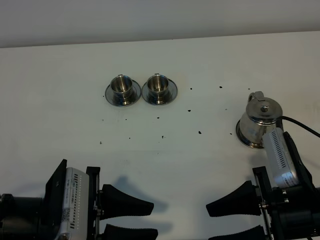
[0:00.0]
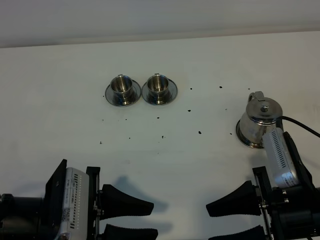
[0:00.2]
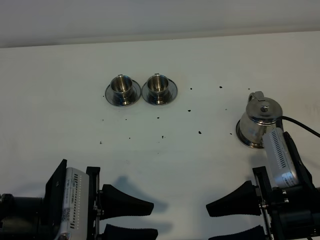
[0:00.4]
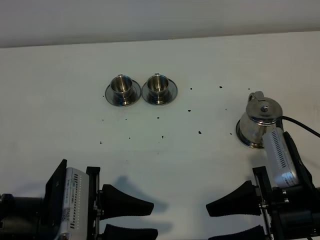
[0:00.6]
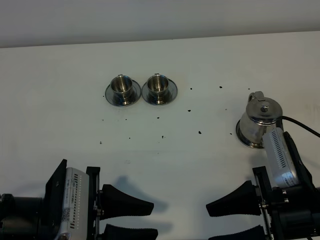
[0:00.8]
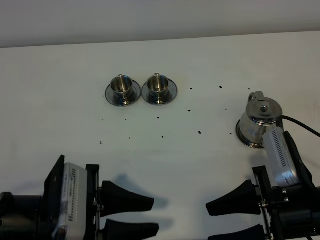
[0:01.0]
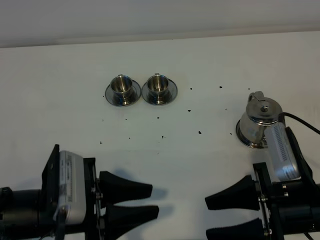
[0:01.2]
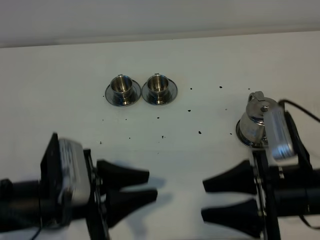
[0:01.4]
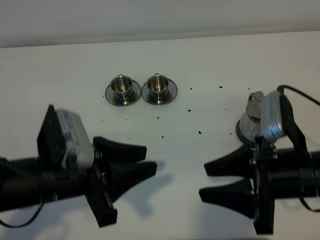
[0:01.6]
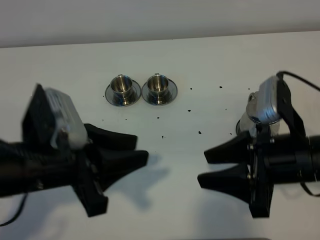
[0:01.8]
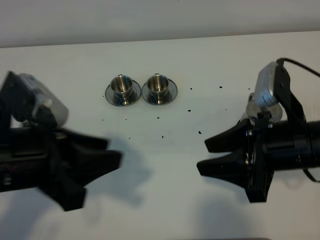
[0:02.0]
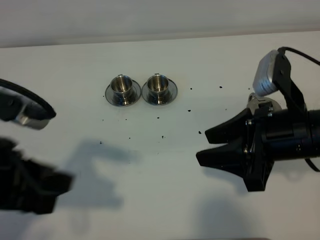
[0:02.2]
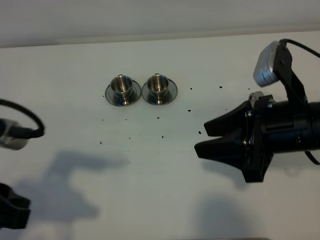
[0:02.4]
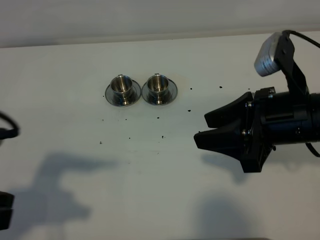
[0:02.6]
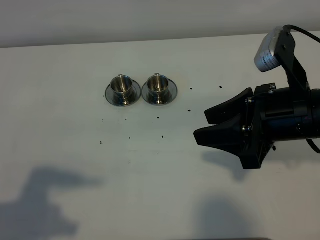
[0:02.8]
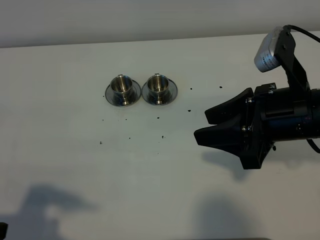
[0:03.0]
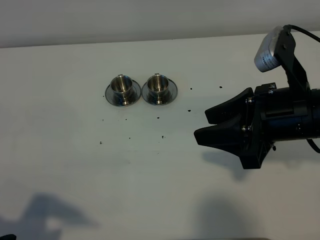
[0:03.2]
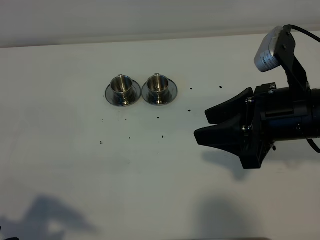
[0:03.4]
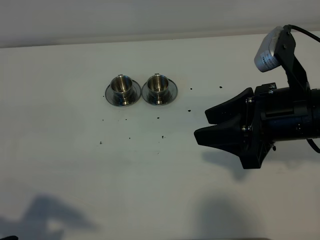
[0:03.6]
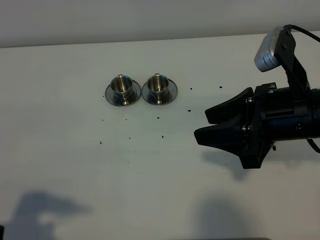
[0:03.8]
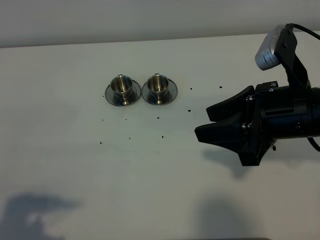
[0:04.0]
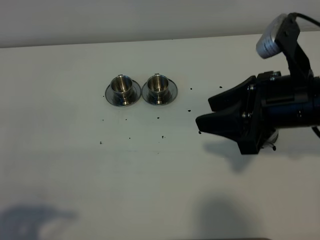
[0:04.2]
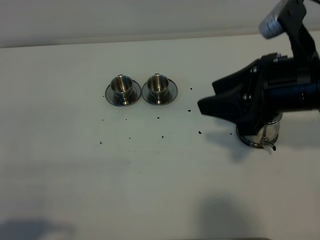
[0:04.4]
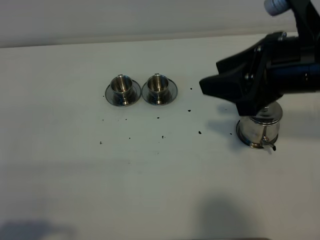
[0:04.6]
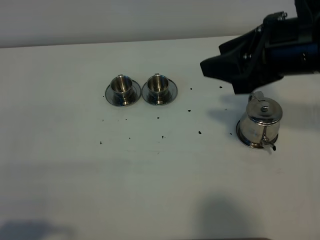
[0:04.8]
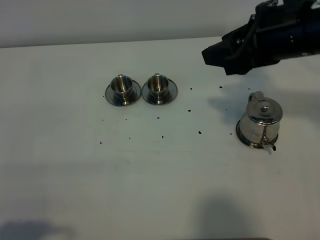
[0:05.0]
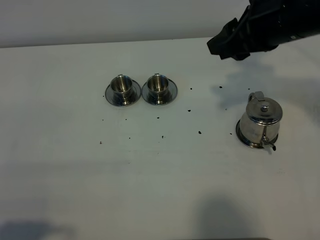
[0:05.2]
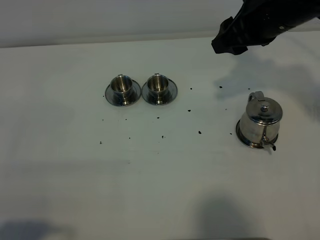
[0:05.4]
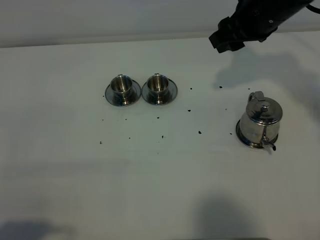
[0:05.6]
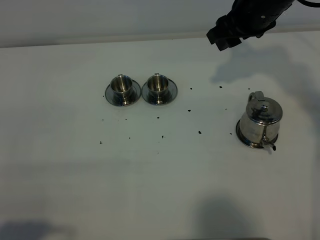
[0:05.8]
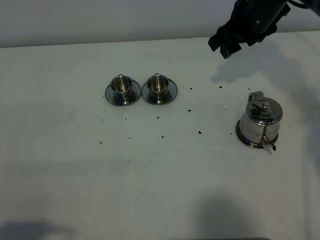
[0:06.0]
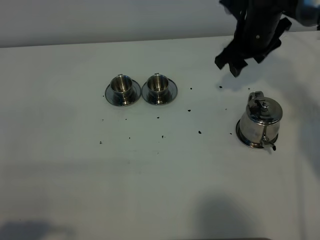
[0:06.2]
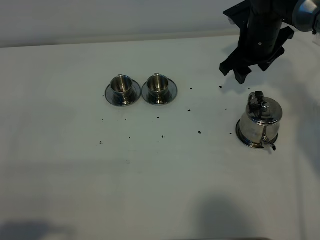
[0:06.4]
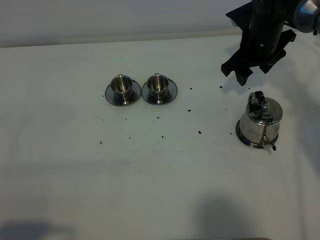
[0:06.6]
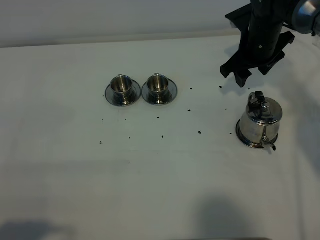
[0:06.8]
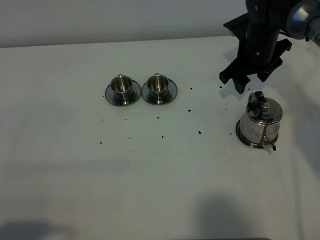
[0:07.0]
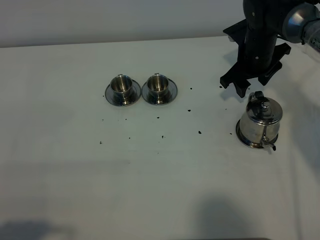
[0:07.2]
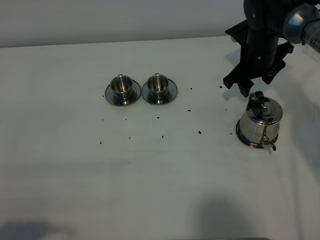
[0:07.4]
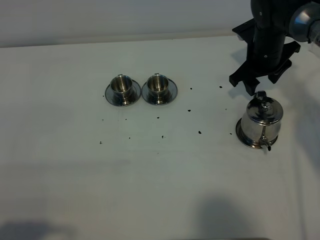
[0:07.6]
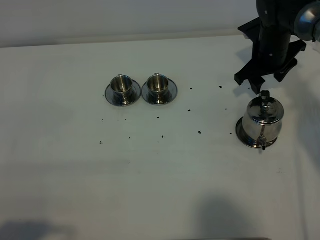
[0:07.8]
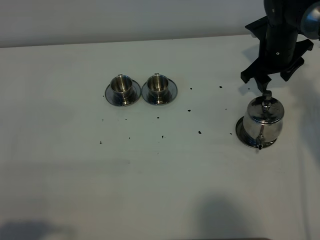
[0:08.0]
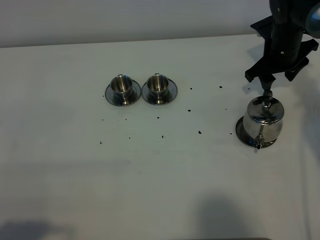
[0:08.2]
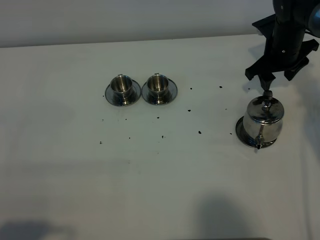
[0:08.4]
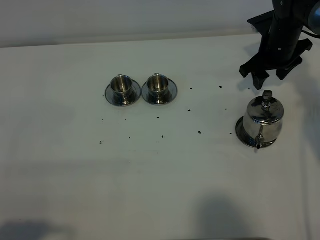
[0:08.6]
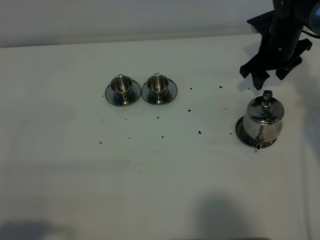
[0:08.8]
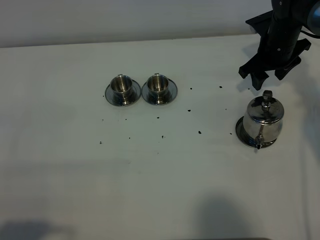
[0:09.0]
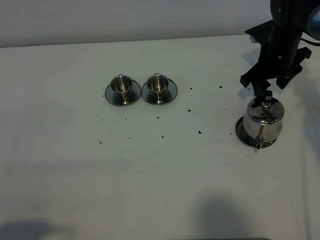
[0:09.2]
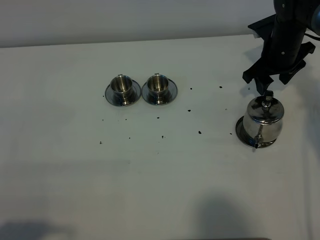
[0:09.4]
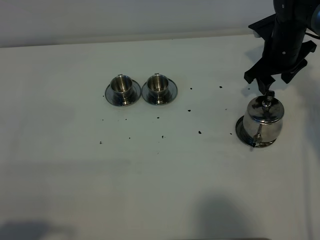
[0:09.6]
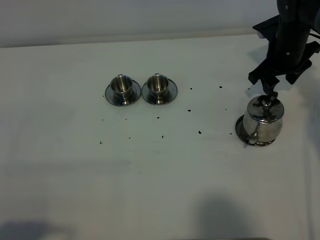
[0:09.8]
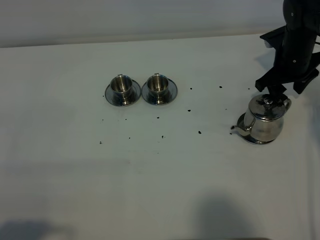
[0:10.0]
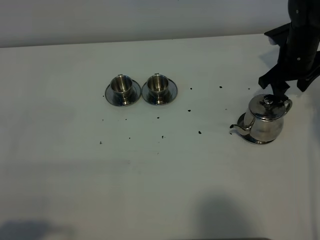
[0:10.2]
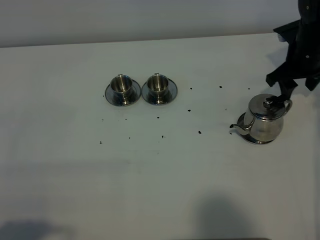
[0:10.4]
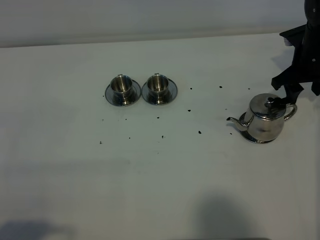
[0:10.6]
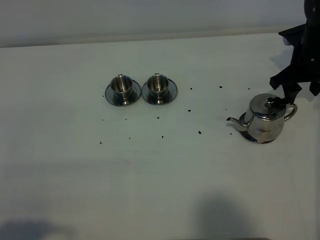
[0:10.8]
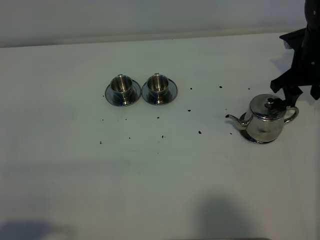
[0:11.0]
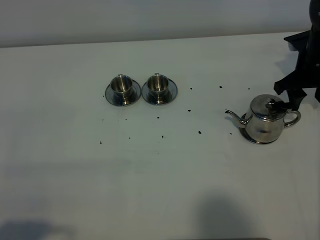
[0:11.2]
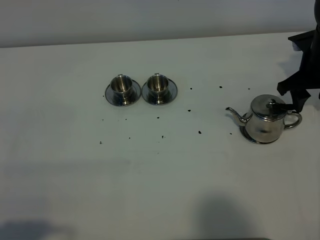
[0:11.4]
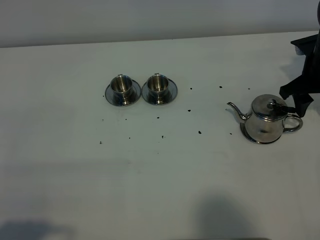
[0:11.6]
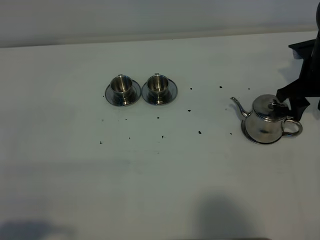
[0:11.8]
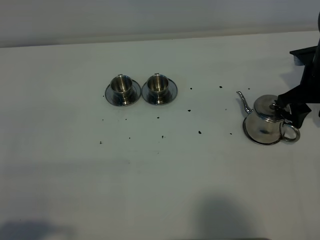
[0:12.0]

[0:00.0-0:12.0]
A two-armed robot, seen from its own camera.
Task of the whole recording: grasp the stainless steel teapot and pour the tea into the two stainless steel teacups one by one, put the stainless steel teapot back in its original place.
0:00.0 to 0:01.6: The left gripper shifts by some 5 cm; the right gripper ends up roughly 5 cm from where it was.
0:01.6 to 0:03.0: The left gripper goes approximately 15 cm to the left and backward. Meanwhile the right gripper moves upward, some 5 cm.
0:03.0 to 0:04.4: The left gripper travels backward by roughly 5 cm.
0:04.4 to 0:06.0: The right gripper is displaced forward by roughly 20 cm.
0:06.0 to 0:07.6: The right gripper is displaced downward by about 10 cm.
0:07.6 to 0:09.0: The grippers move only a little.
0:09.0 to 0:10.4: The right gripper goes about 5 cm to the right.
0:10.4 to 0:12.0: The right gripper moves backward, some 5 cm.

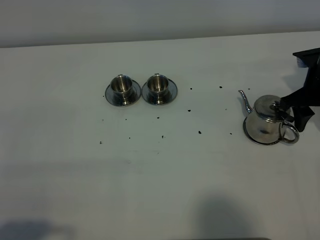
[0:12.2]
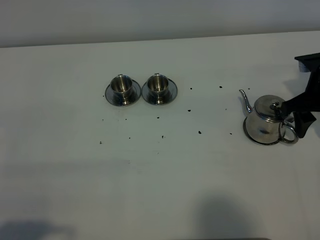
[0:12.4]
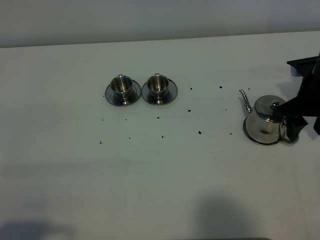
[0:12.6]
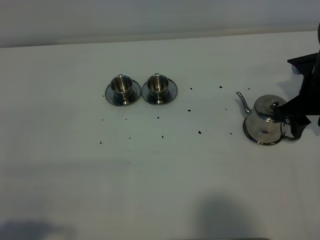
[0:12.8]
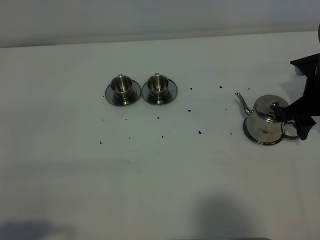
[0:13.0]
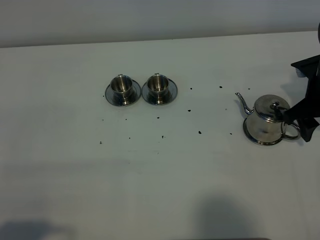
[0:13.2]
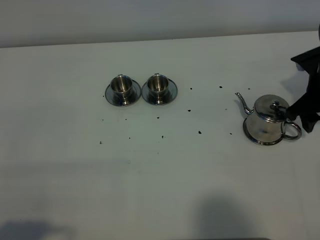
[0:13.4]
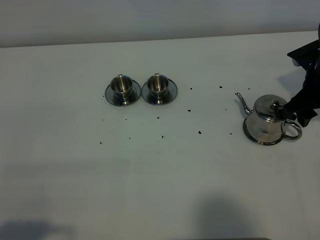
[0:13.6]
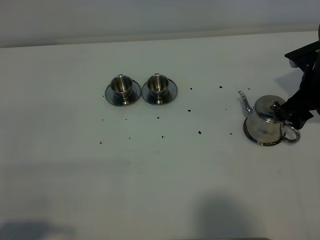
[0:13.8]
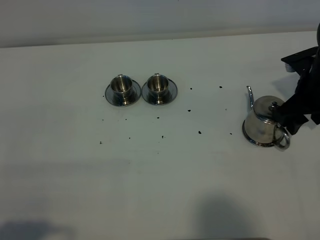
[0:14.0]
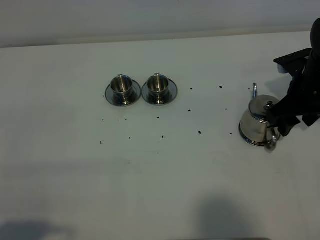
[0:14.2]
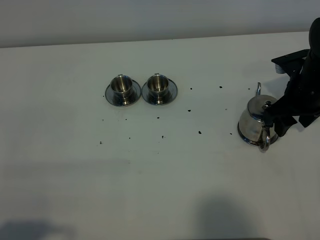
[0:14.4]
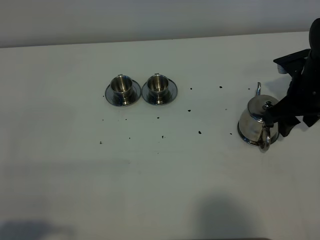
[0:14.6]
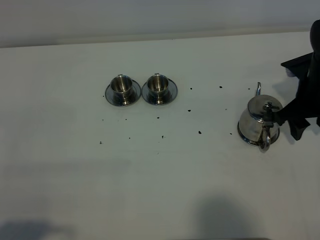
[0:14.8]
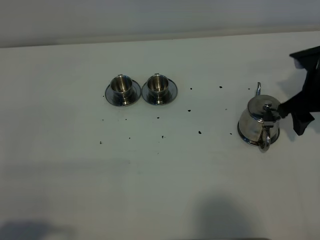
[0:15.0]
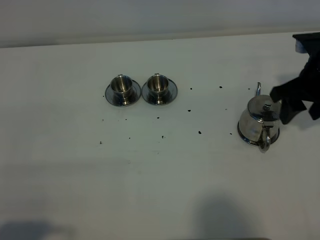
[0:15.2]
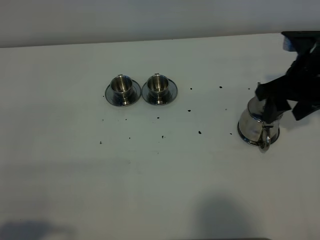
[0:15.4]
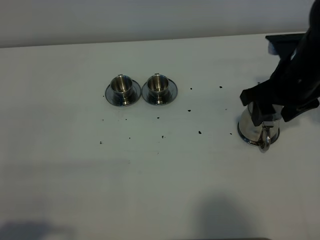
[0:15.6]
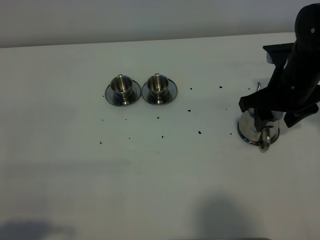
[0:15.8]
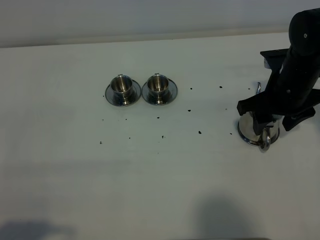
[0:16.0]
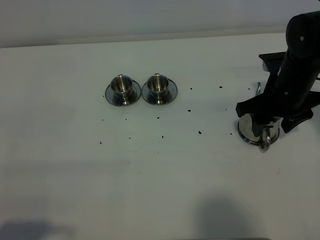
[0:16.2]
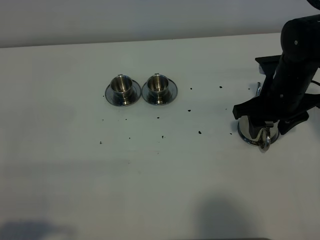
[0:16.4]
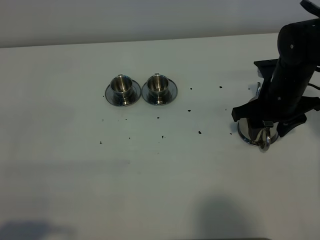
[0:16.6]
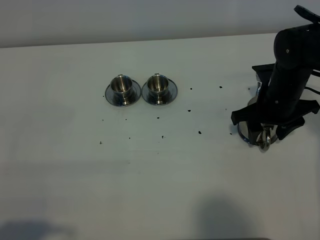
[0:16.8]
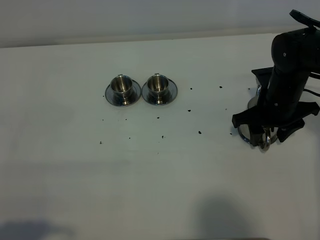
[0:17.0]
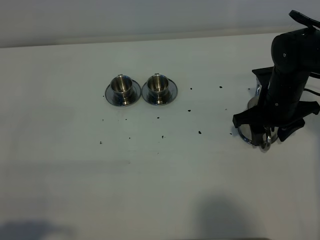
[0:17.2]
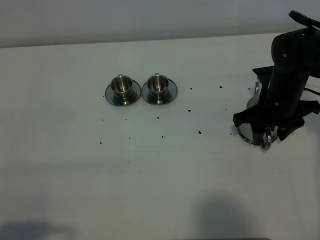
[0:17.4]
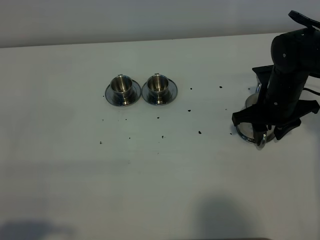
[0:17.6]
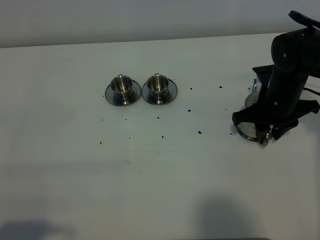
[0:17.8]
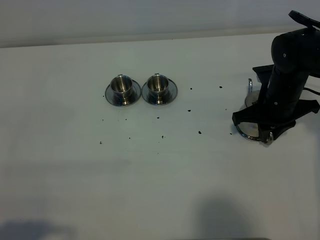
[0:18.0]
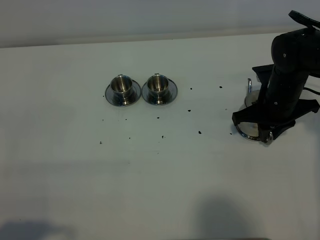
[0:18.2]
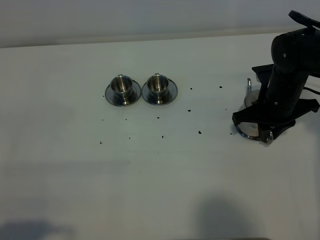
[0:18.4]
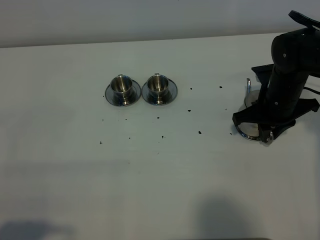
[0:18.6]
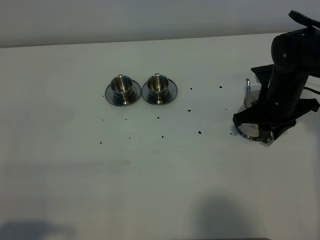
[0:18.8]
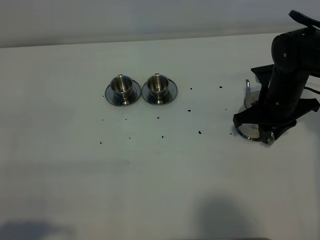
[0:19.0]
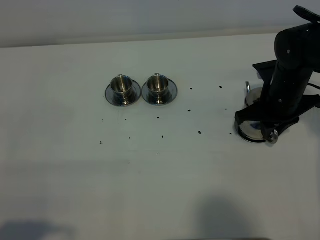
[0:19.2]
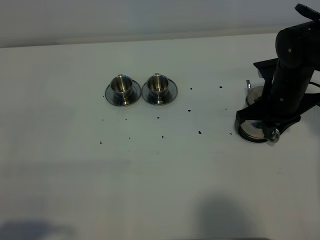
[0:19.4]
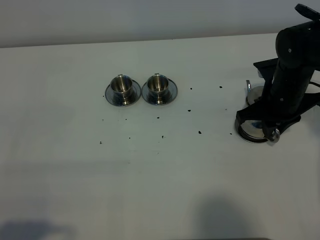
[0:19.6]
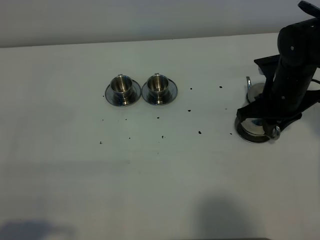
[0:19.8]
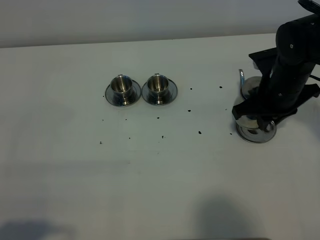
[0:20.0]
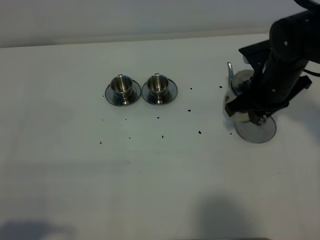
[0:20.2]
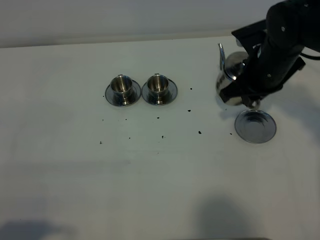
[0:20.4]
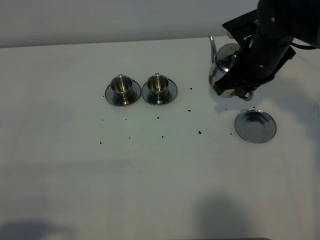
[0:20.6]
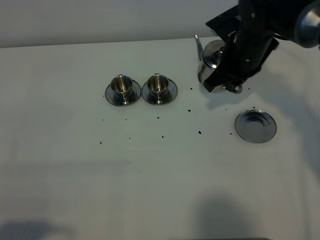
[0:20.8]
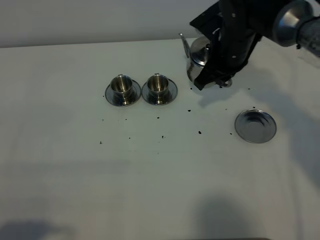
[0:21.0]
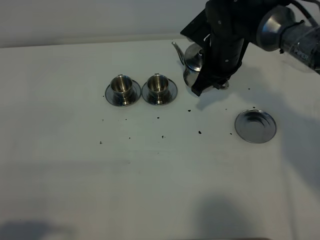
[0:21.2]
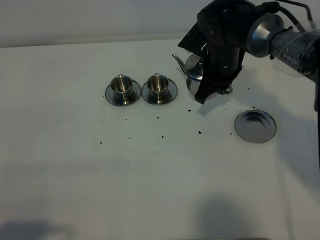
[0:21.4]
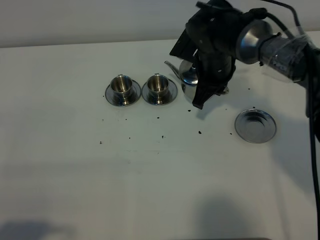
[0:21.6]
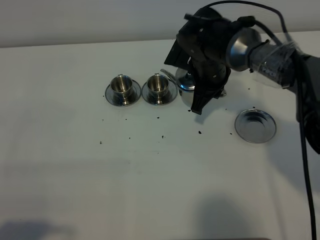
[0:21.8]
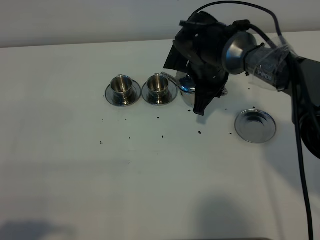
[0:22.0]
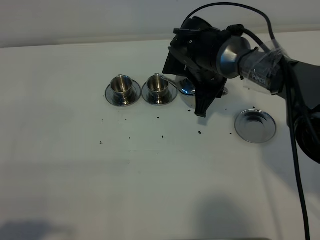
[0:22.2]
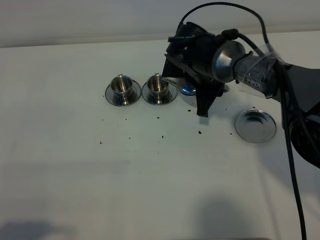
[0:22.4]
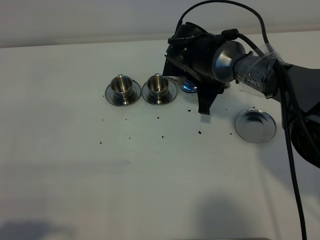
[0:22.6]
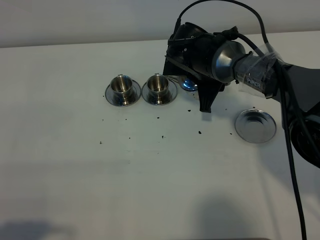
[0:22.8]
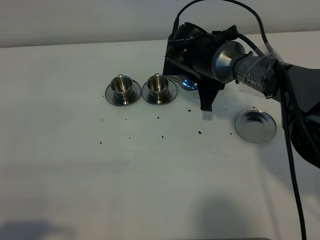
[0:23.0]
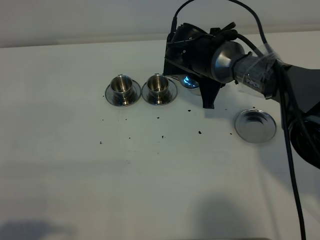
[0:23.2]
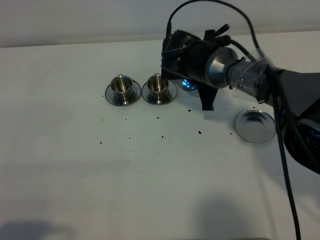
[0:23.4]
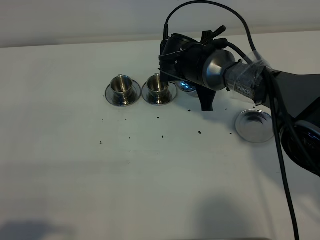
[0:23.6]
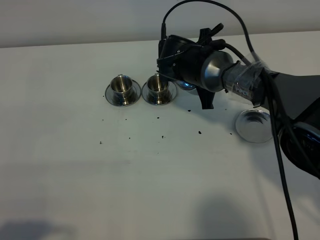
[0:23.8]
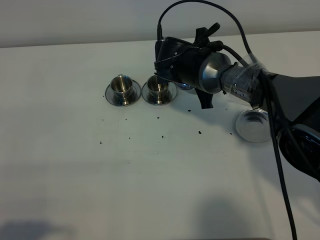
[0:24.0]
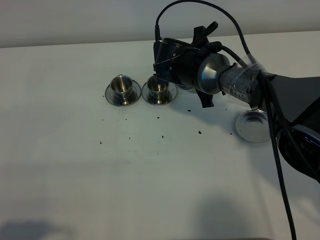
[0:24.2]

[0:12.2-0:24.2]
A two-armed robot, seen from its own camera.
Task of the whole recording: grasp the stainless steel teapot and pour the tea into the two stainless steel teacups one by one, put the stainless steel teapot back in its original place.
Step, 0:12.2 to 0:20.0: Pick up the teapot with the right gripper.
0:12.2 to 0:13.8: The grippers make only small movements.
0:13.8 to 0:15.2: The right gripper shifts approximately 5 cm upward.
0:15.2 to 0:16.6: The right gripper is displaced downward by about 10 cm.
0:16.6 to 0:18.2: The right gripper closes up.
0:18.2 to 0:19.8: The grippers stay close to where they were, moving slightly.
0:19.8 to 0:21.2: The right gripper is displaced to the left and forward by roughly 15 cm.
0:21.2 to 0:22.6: The right gripper ends up about 5 cm from where it was.
0:22.6 to 0:24.2: The grippers make only small movements.
